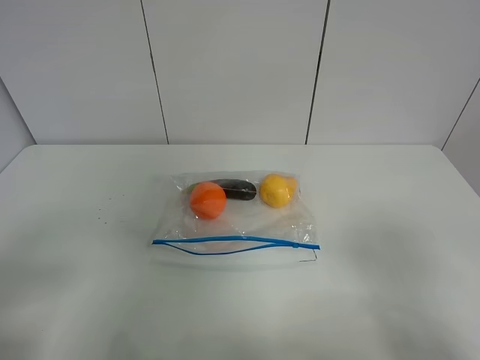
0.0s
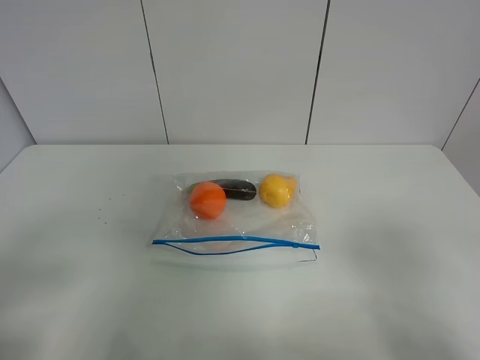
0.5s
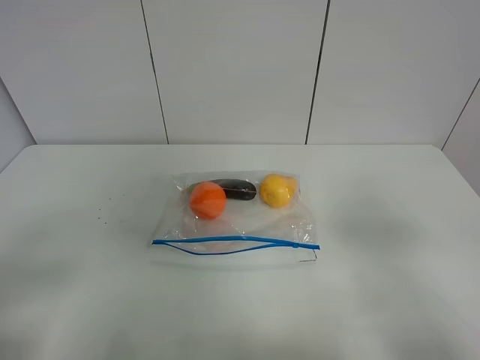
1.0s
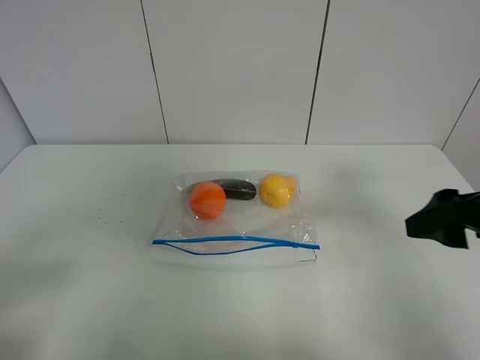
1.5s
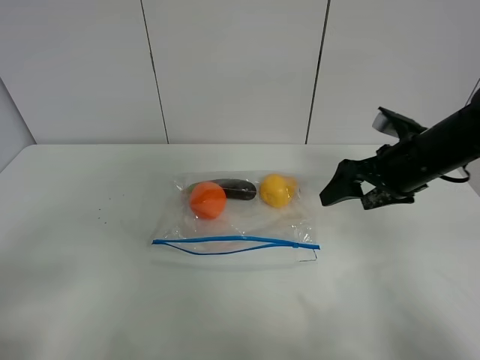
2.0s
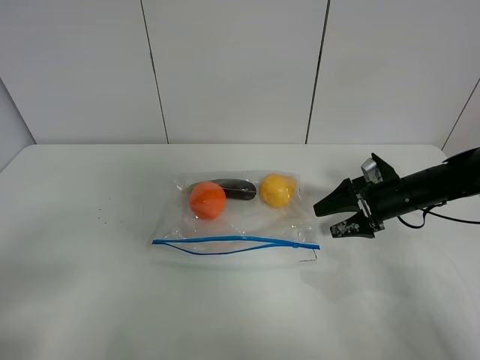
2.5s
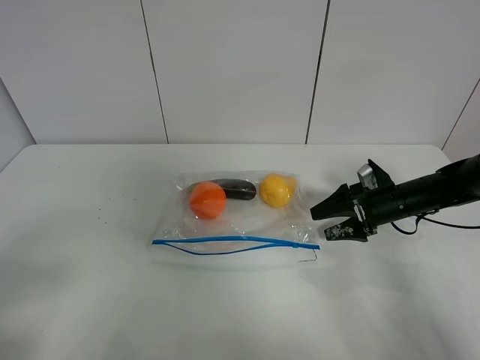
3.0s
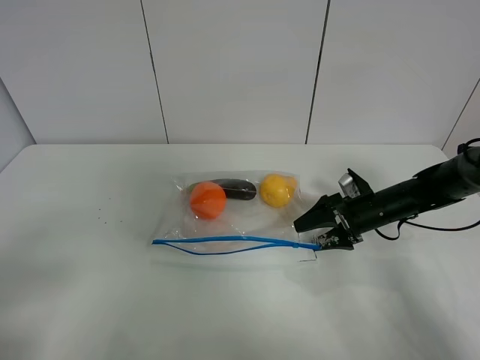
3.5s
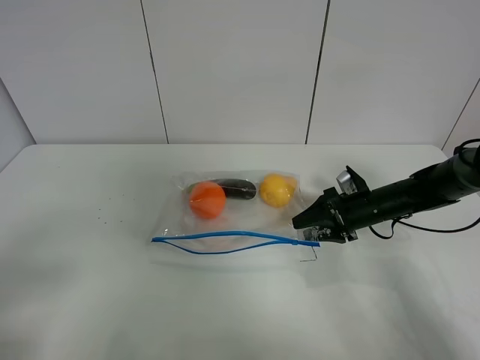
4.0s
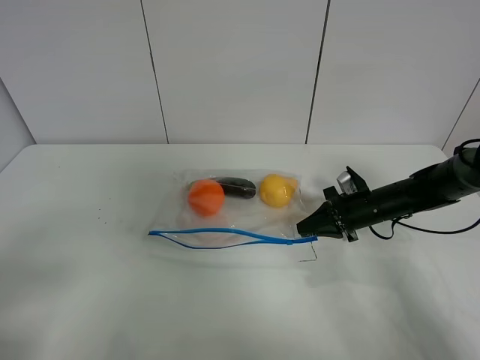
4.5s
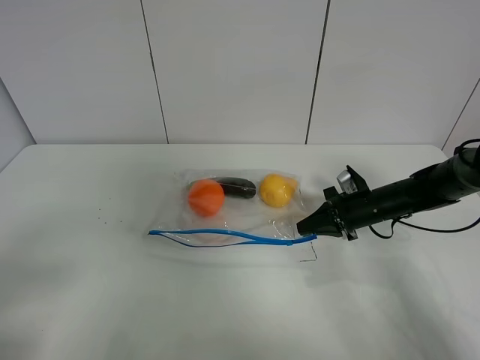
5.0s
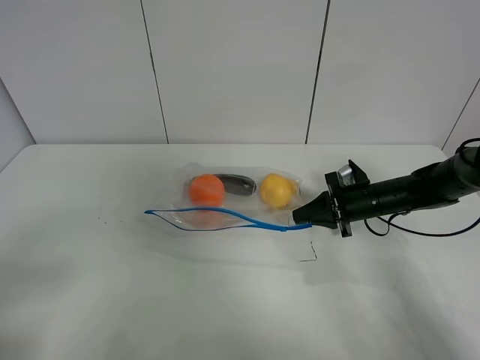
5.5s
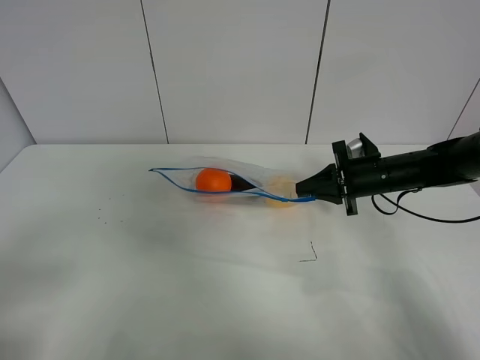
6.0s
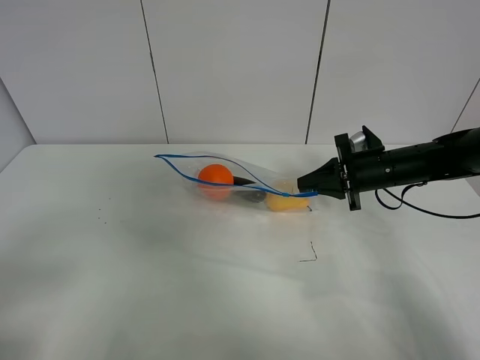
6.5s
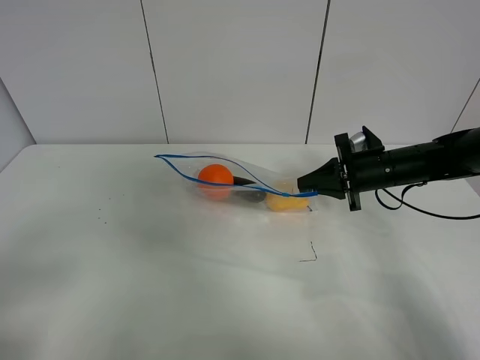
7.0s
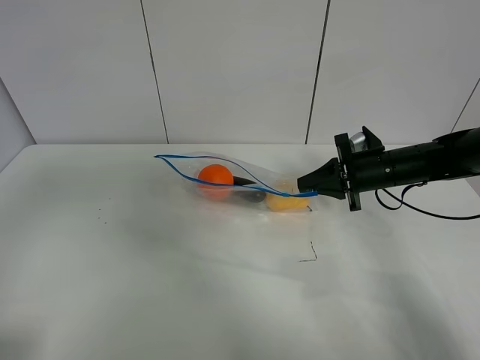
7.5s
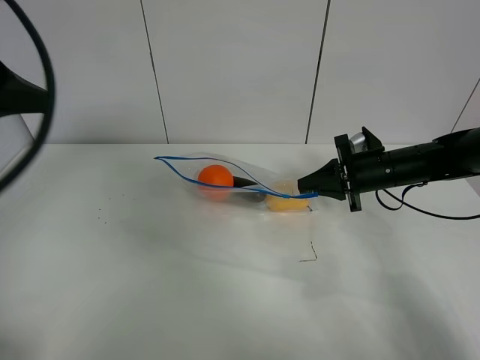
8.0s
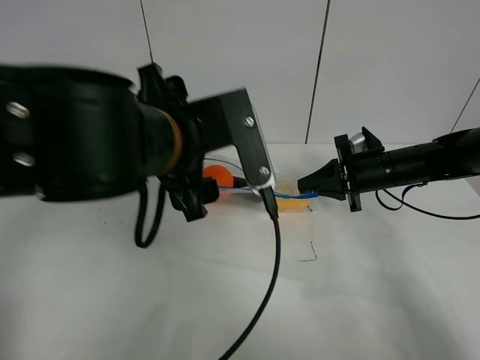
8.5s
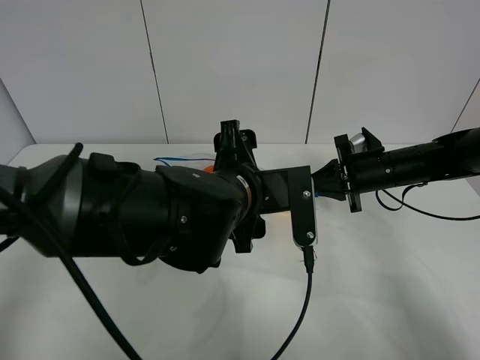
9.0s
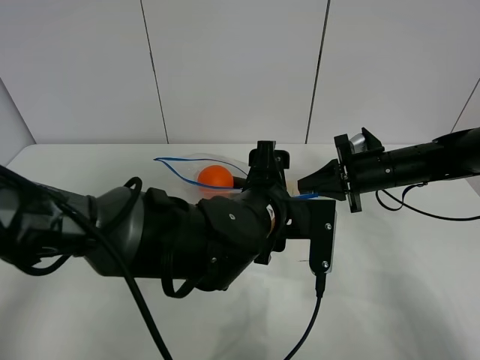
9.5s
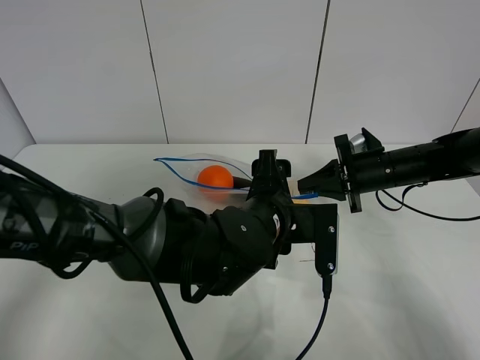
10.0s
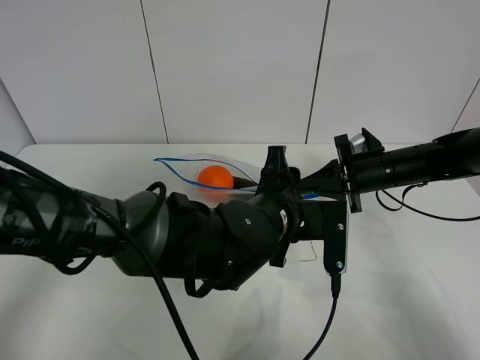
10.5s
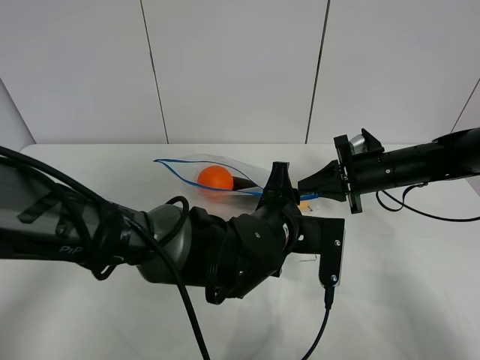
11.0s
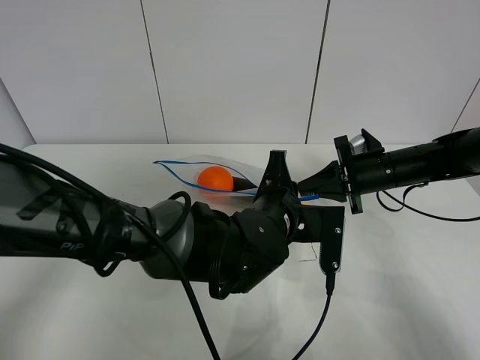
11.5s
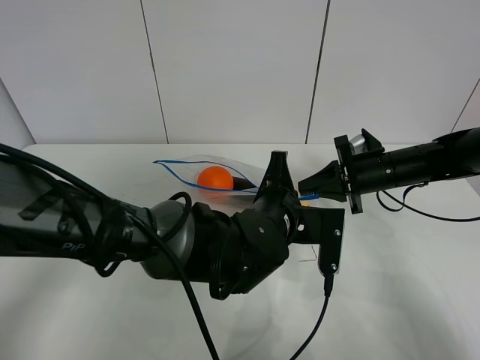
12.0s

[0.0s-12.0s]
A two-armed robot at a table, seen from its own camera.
Step, 0.0s to 4.5s: Grasp the fruit bag with right gripper.
Step, 5.0s to 6.5s: Lift the fruit bag with your right gripper.
0.0s to 2.0s: The right gripper heads forward, covering approximately 30 cm.
2.0s to 4.0s: The right gripper shifts some 15 cm downward, and closes its fingers.
4.0s to 6.0s: The right gripper heads upward, covering roughly 5 cm, and closes.
6.0s to 8.0s: The left gripper is displaced forward and upward by some 25 cm.
8.0s to 10.0s: The left gripper heads to the right and downward, covering approximately 35 cm.
10.0s to 12.0s: The left gripper closes.

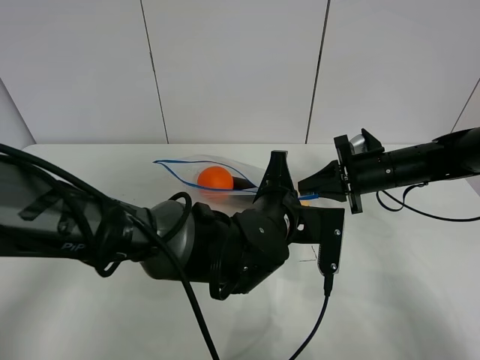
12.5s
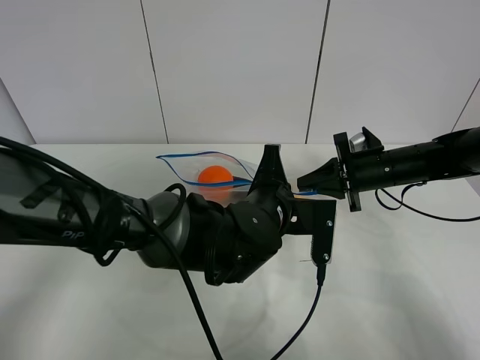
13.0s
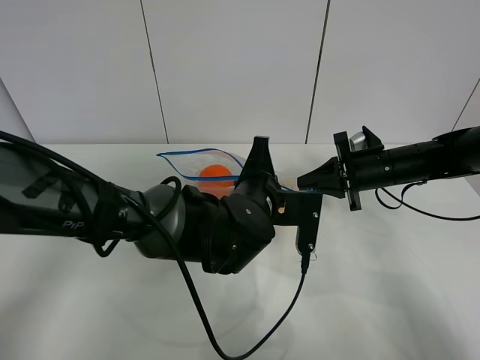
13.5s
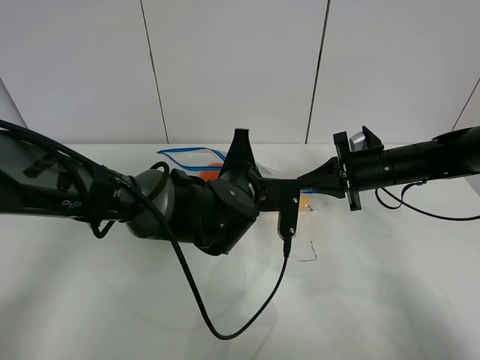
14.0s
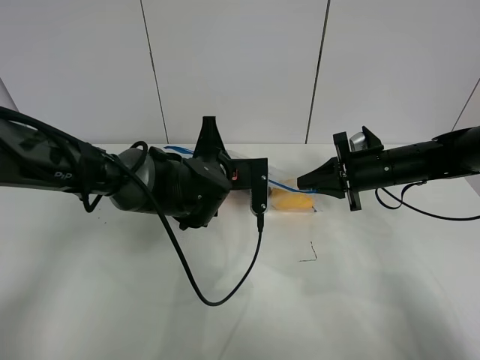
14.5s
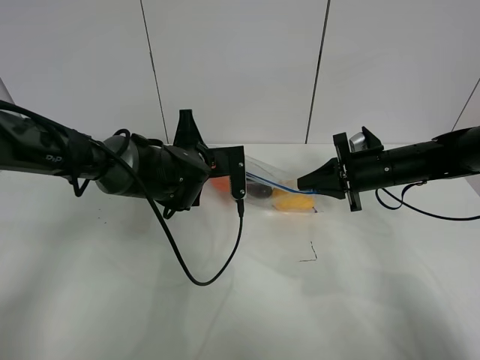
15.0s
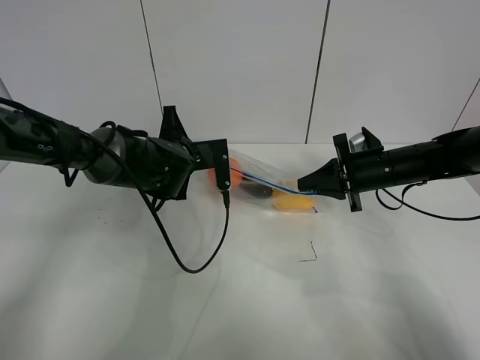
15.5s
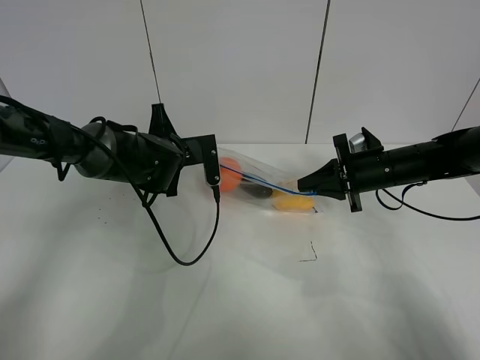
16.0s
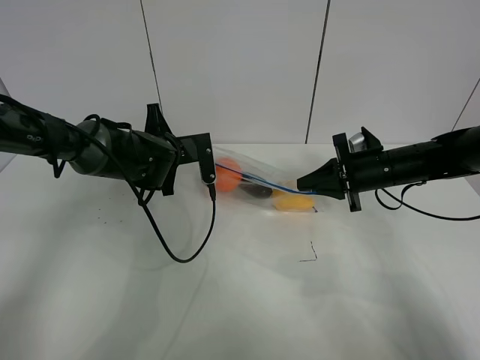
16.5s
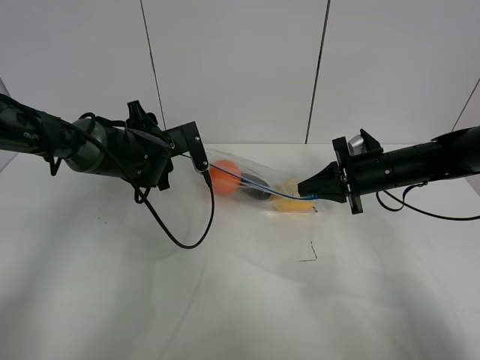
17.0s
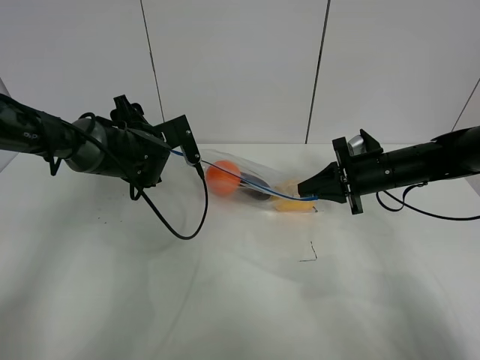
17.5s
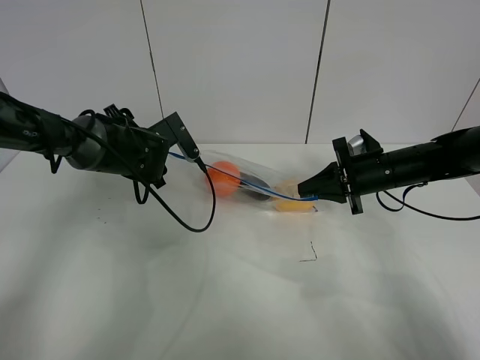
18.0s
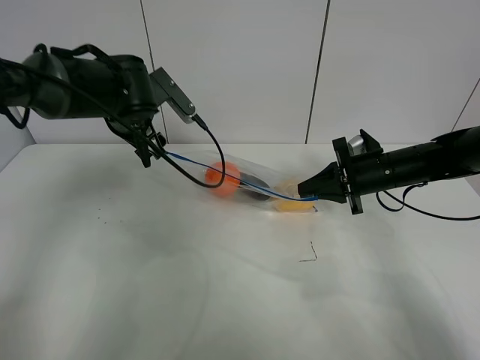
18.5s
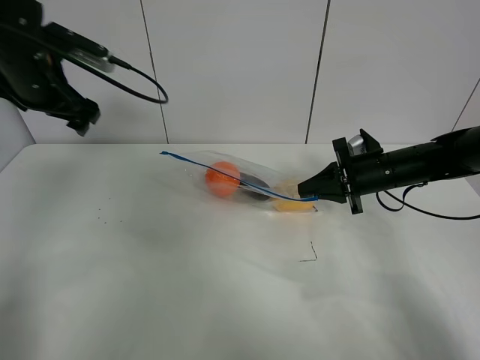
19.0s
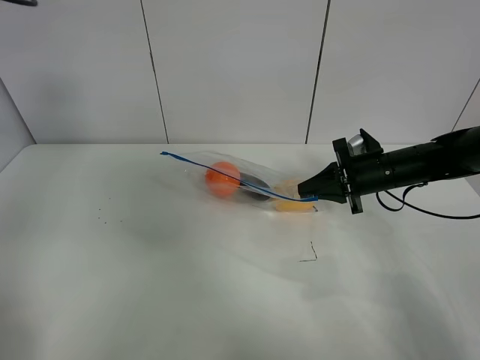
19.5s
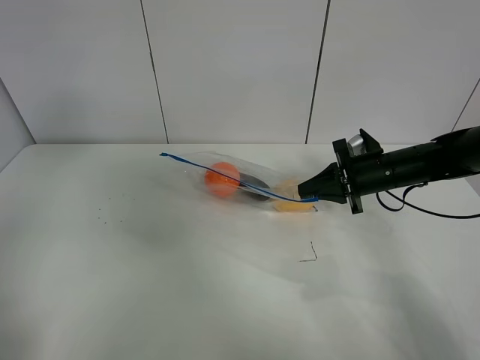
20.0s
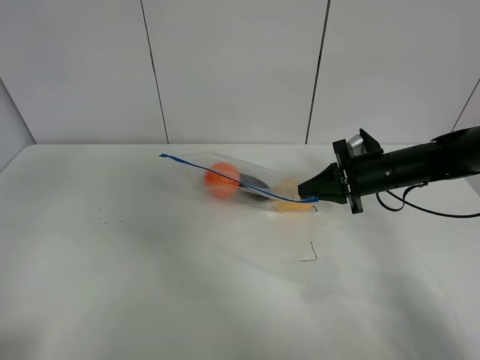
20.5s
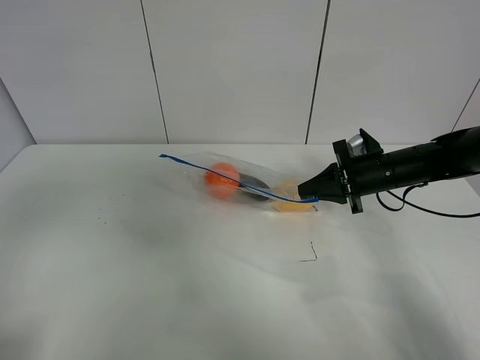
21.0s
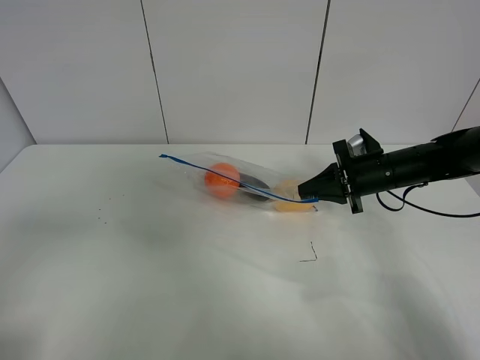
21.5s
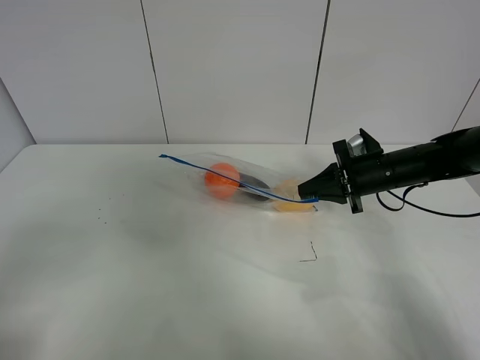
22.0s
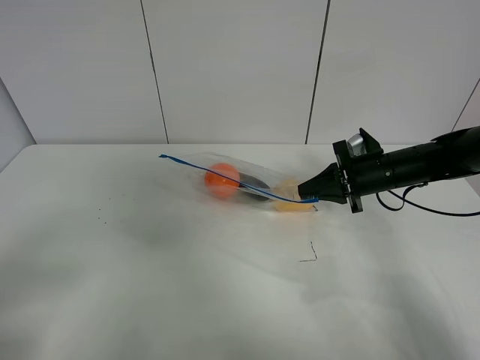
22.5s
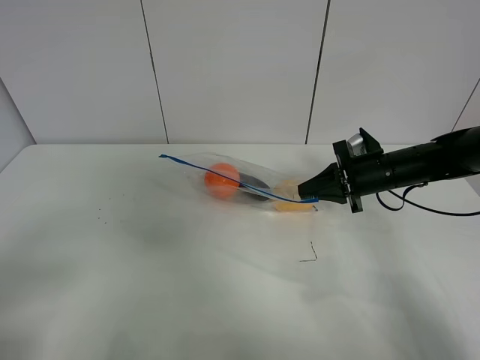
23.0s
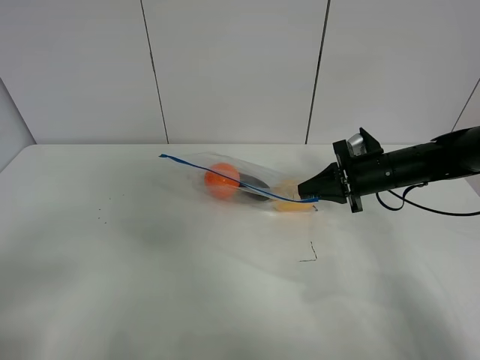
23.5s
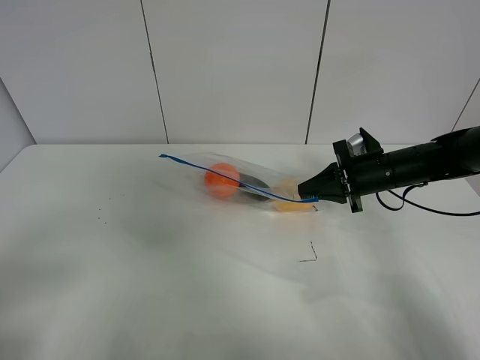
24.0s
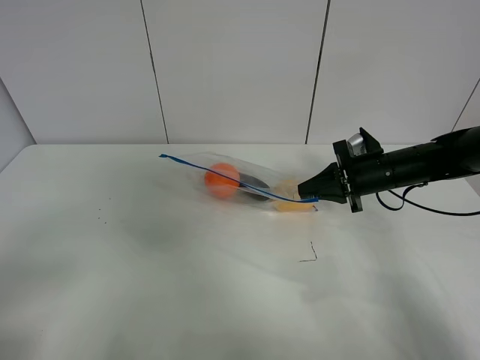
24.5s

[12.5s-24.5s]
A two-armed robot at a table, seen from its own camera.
Step, 12.5s to 17.0s: Pull the fruit bag with left gripper.
12.5s to 14.5s: The left gripper heads forward and to the left, covering some 15 cm.
14.5s to 16.5s: The left gripper travels to the left and forward by some 10 cm.
16.5s to 18.5s: The left gripper goes some 10 cm upward, and opens up.
18.5s to 20.5s: The left gripper moves backward, to the left and upward, roughly 40 cm.
20.5s to 22.5s: The left gripper shifts approximately 15 cm downward and backward.

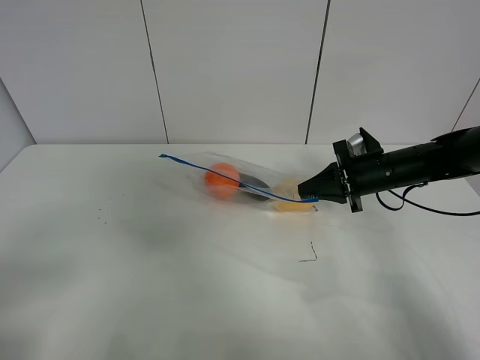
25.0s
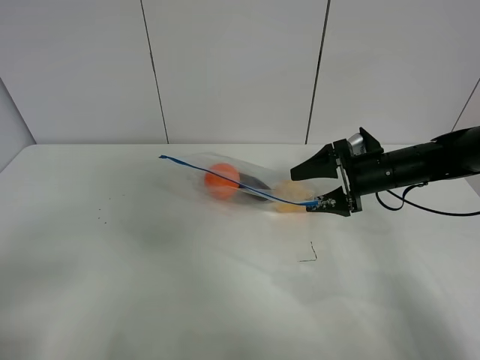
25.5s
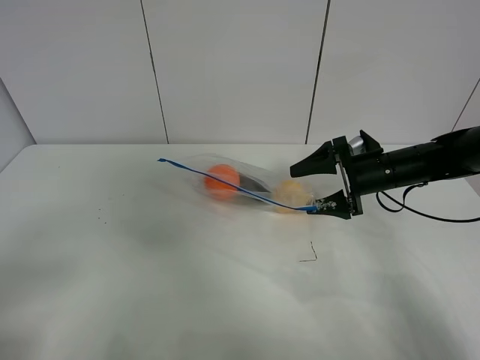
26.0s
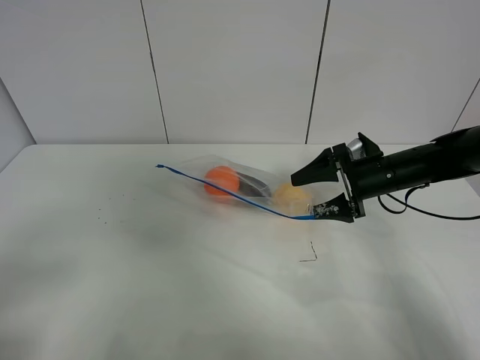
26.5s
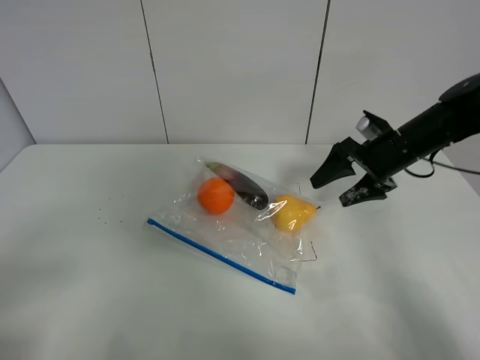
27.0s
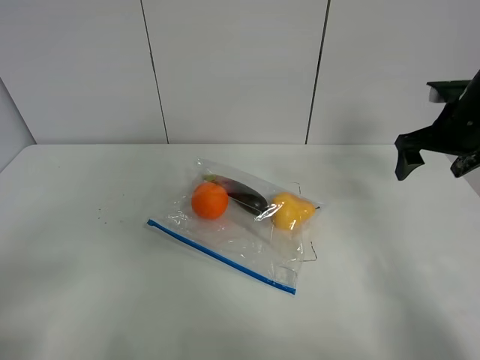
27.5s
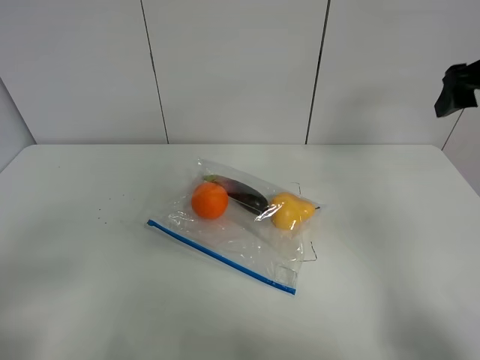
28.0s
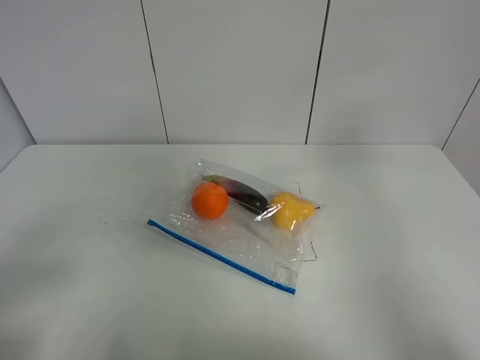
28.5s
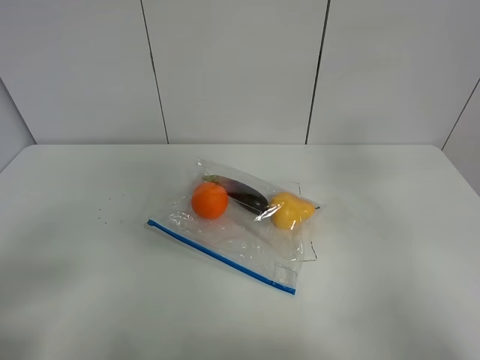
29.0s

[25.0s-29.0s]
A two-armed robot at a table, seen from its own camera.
Step, 25.0s to 27.0s: Place the fruit bag with right gripper.
25.0s to 27.0s: The right gripper changes place by some 5 cm, and opens its fingers.
27.0s to 29.0s: The right gripper travels backward and upward by approximately 25 cm.
